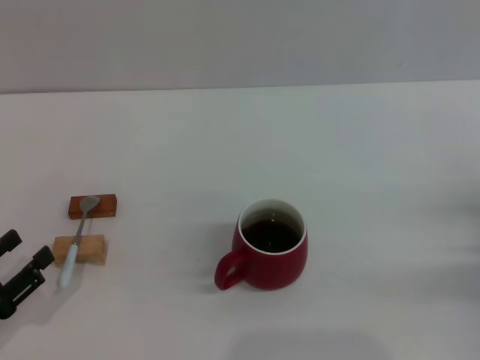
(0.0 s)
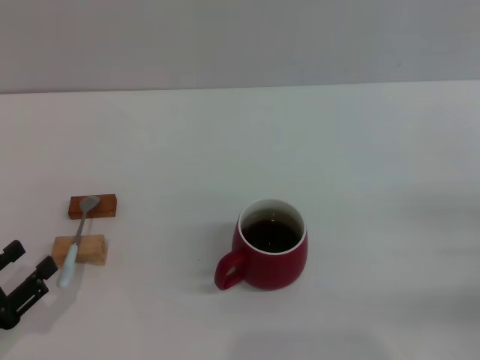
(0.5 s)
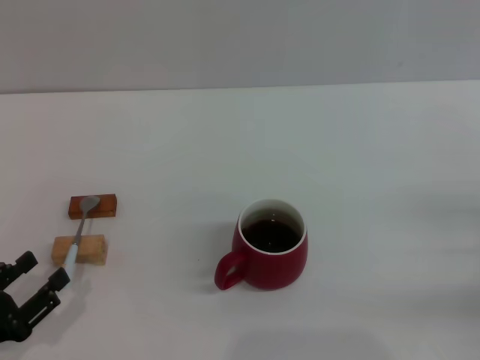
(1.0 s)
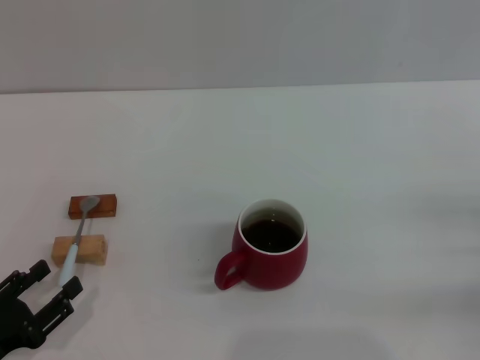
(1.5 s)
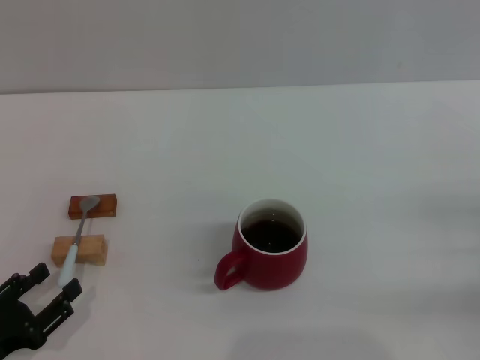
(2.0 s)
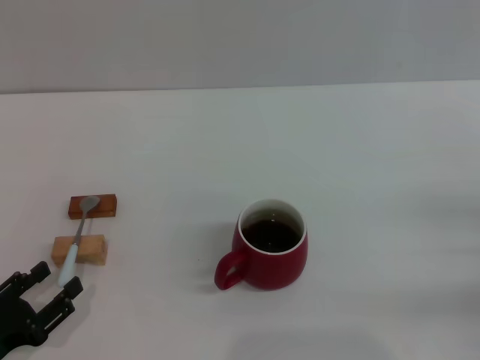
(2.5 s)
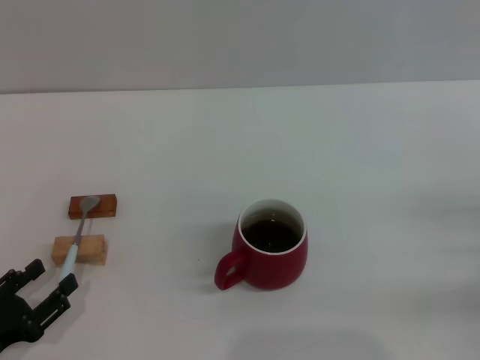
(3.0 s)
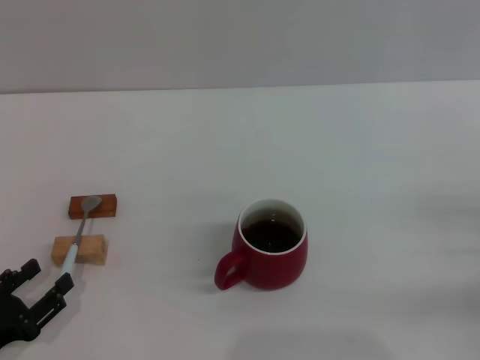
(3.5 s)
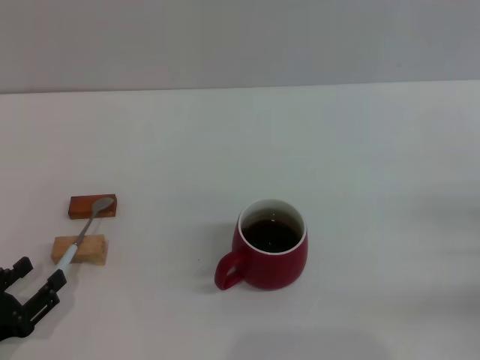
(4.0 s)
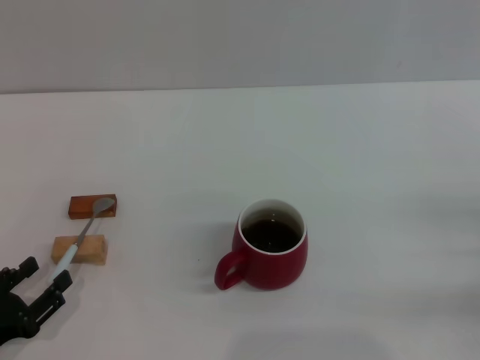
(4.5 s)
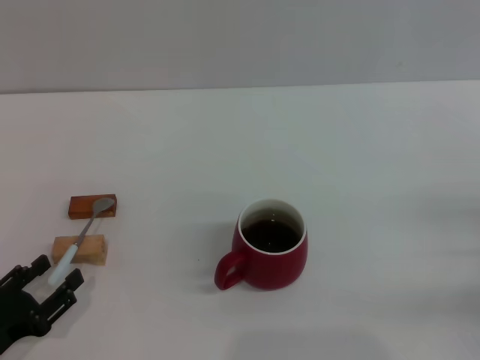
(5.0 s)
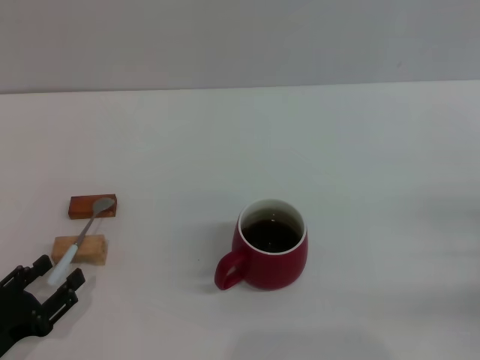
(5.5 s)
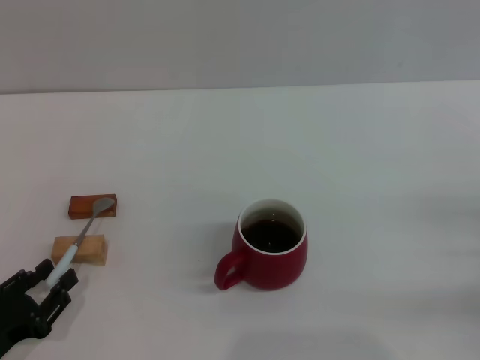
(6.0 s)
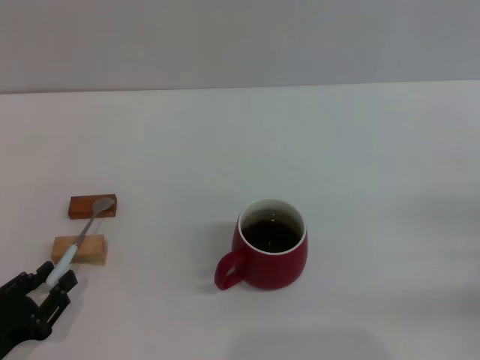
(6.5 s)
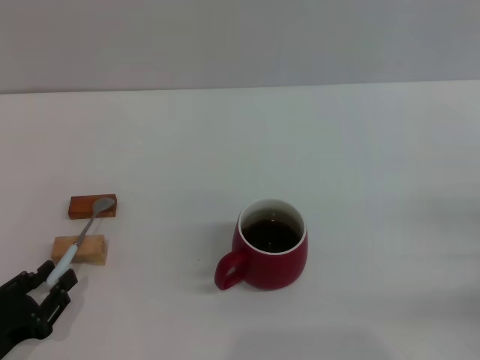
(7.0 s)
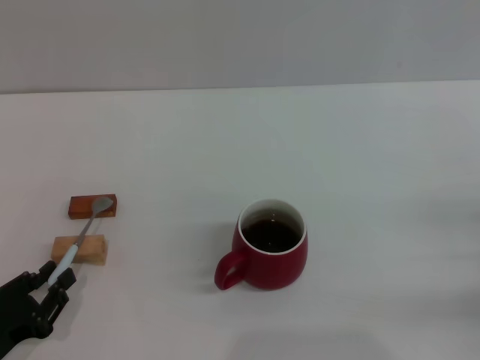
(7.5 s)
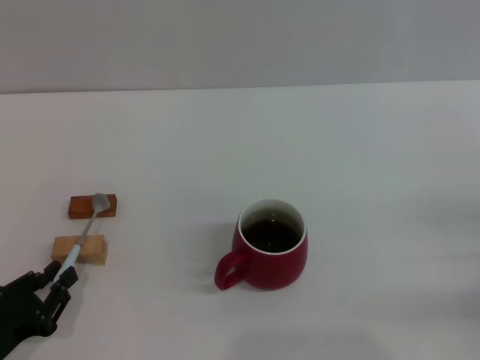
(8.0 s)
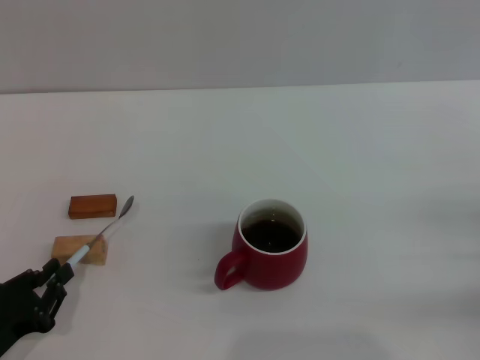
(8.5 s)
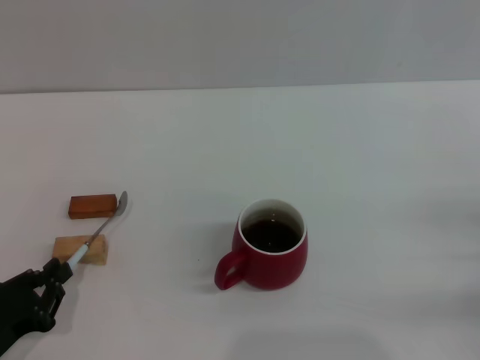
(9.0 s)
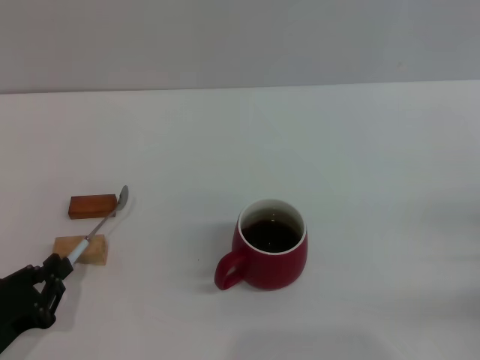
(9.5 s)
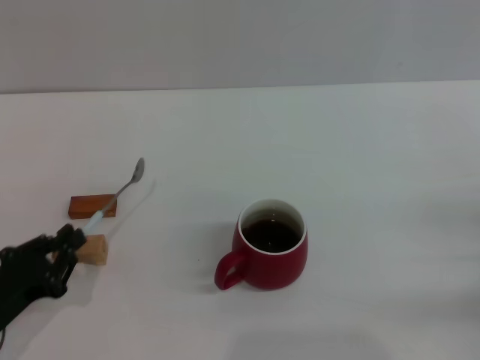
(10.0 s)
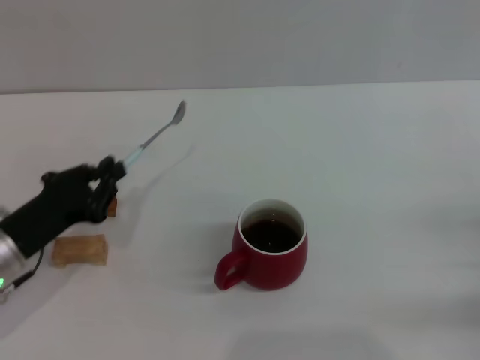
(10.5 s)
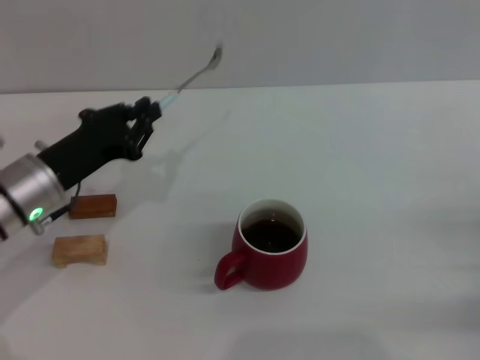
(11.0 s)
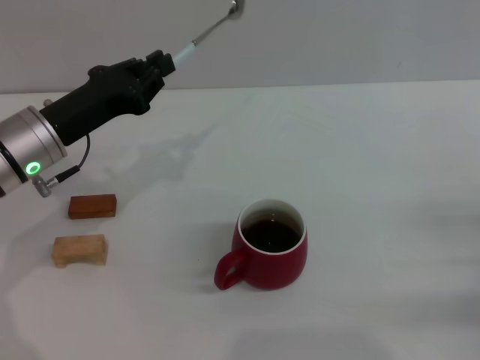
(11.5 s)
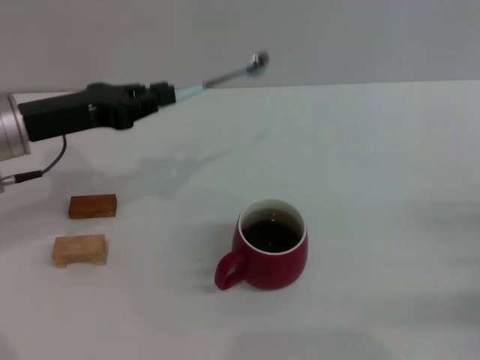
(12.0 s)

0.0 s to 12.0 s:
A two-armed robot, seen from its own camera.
Task of the whole recording: Move the red cup to the center, lift the blue spoon, stir it three times in the cup, and put the spoon into the cup.
Step, 0.0 to 10.0 s: Pick up the spoon with the left gripper.
0.0 to 2.0 s: The grippers move only a little.
2.0 to 4.0 s: Both grippers stay about where they are.
4.0 to 6.0 s: The grippers move only a little.
6.0 to 8.0 s: Both grippers stay about where they are.
8.0 to 10.0 s: There are only small adjustments of the grippers.
10.0 to 12.0 s: The left gripper goes approximately 20 cm forward and upward.

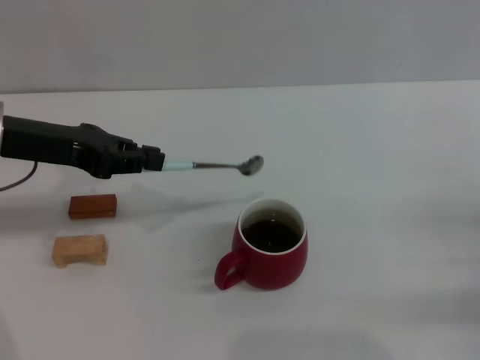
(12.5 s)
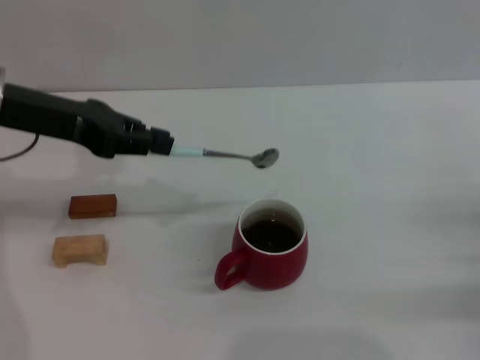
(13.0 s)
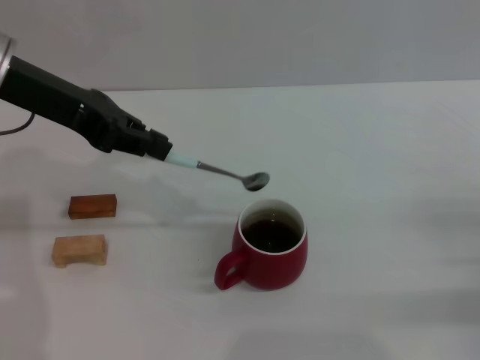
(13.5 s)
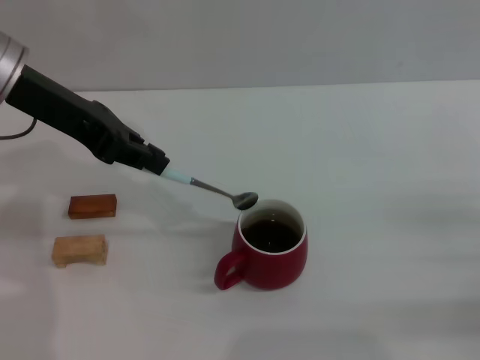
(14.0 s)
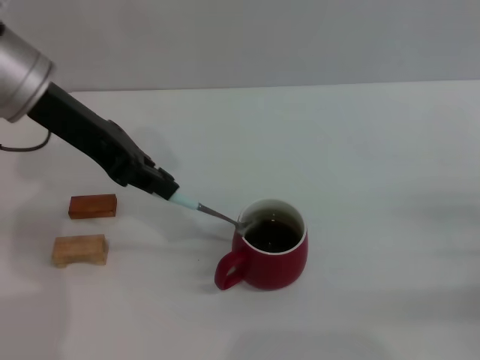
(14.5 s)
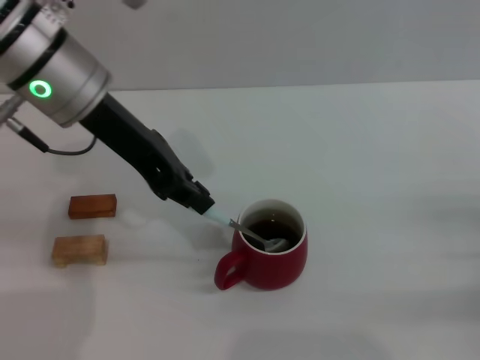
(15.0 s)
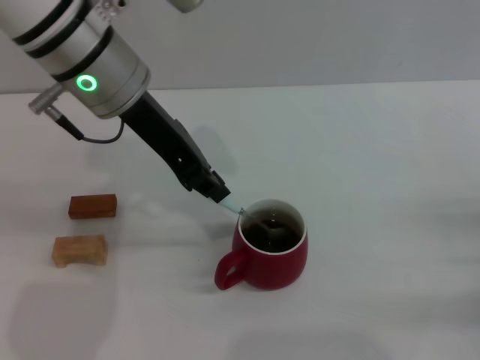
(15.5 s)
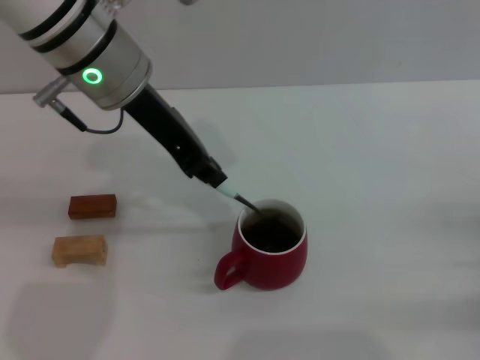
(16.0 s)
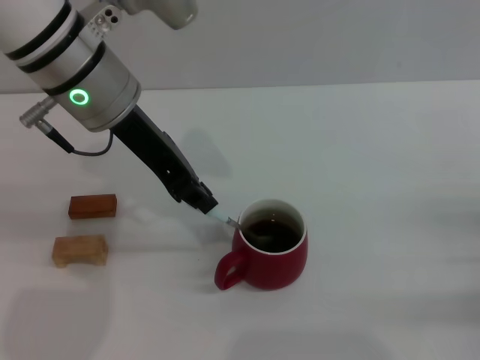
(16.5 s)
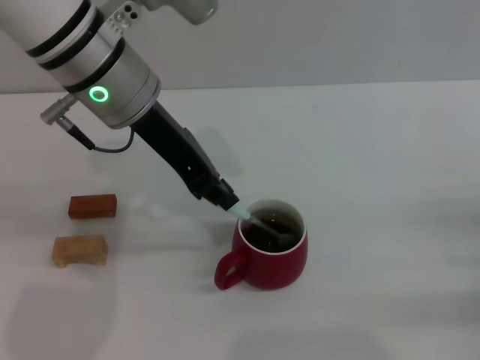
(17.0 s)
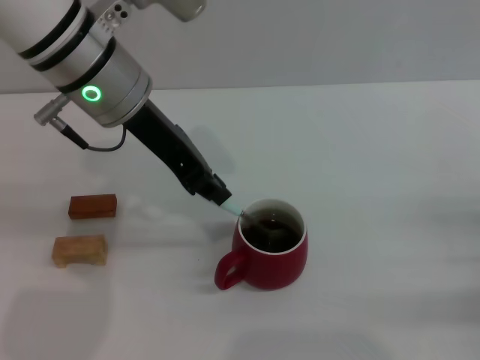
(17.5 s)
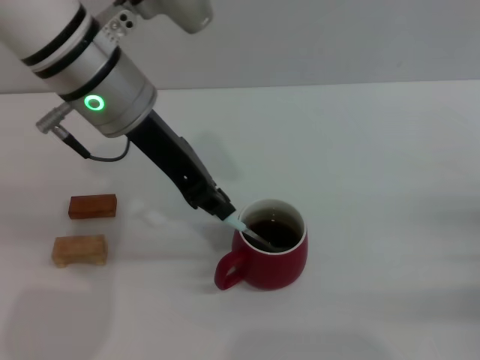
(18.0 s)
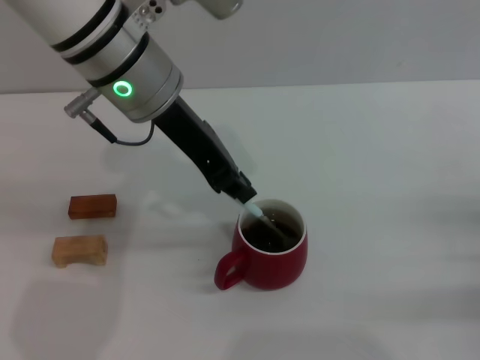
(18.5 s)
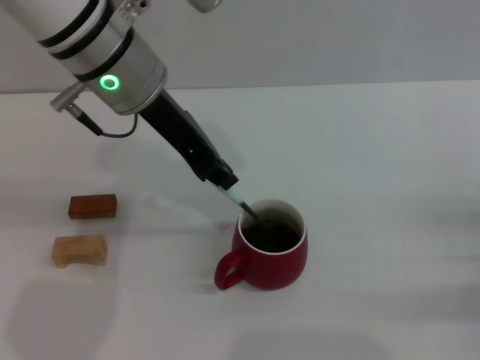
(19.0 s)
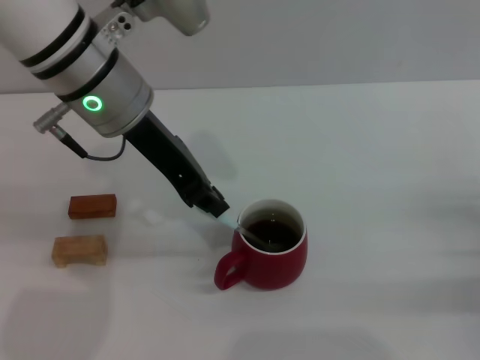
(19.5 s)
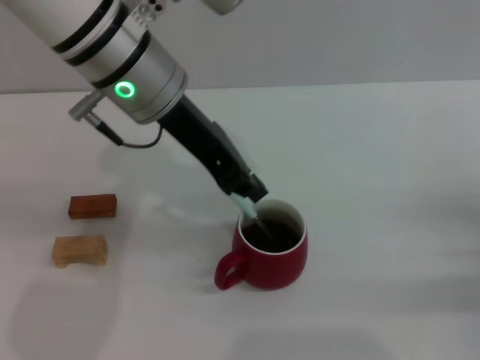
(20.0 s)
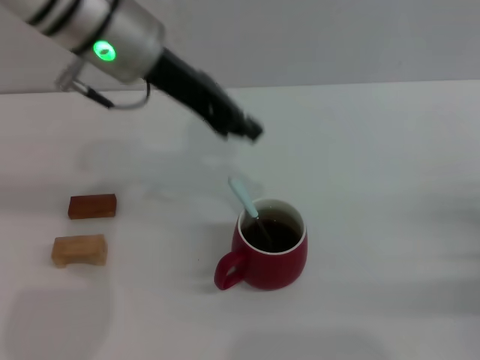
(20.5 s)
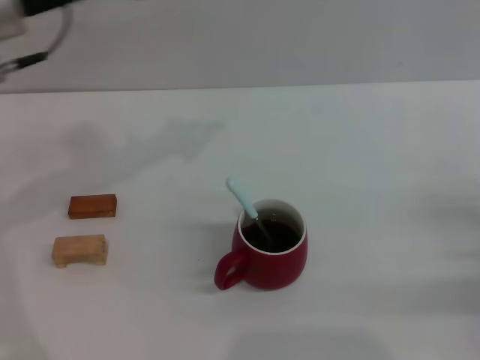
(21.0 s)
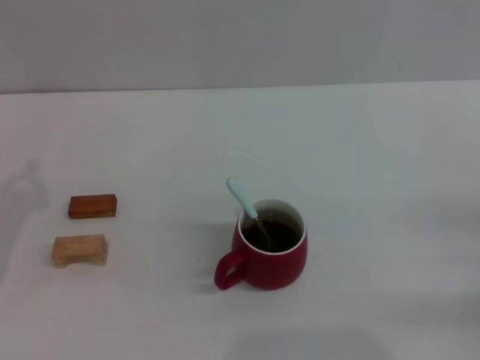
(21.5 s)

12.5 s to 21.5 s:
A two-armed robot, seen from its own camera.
Task of the whole recording: Move the red cup to the center, lift the blue spoon, stir it three times in the cup, and put the spoon into the cup.
Step, 12.5 to 20.5 s: Stir the coffee in the cup with the left gripper.
12.5 to 14.5 s: The left gripper is displaced upward and to the right by about 10 cm.
14.5 to 17.0 s: The left gripper goes roughly 10 cm to the right.
17.0 to 19.5 s: The grippers make only small movements.
19.5 to 21.5 s: The left gripper moves to the left, downward and backward, some 25 cm.

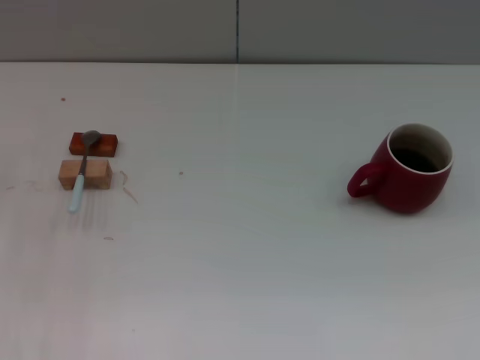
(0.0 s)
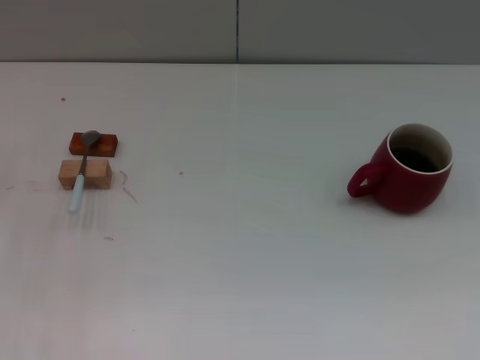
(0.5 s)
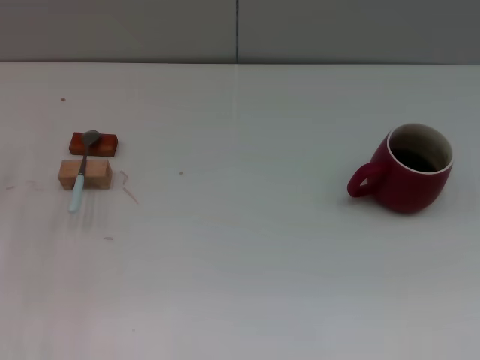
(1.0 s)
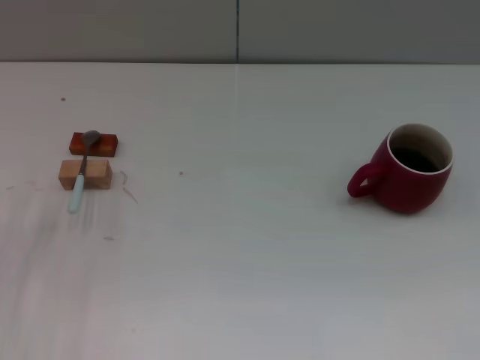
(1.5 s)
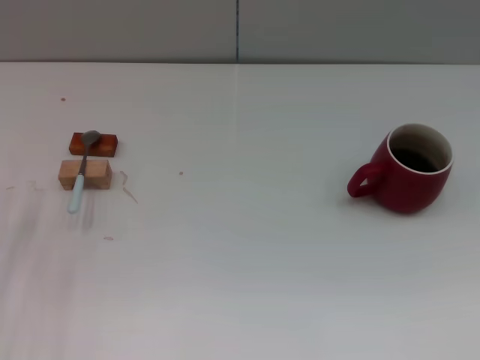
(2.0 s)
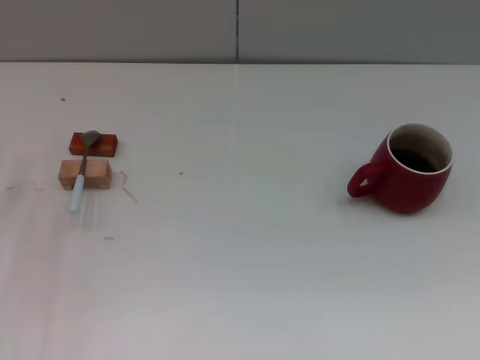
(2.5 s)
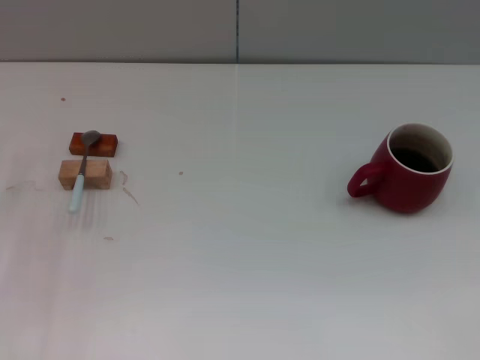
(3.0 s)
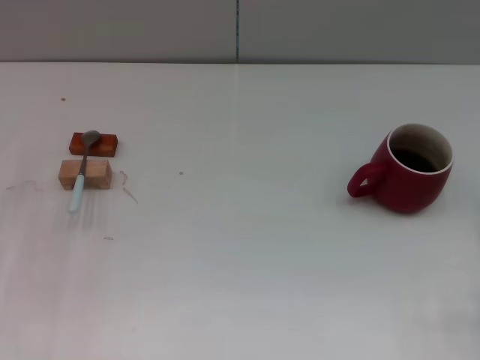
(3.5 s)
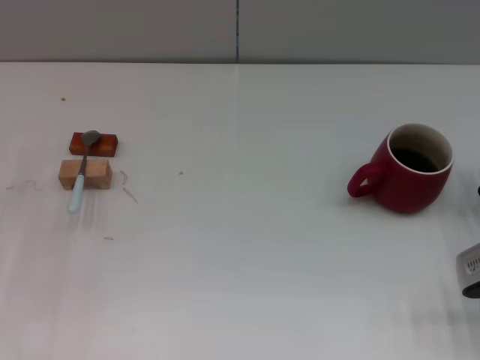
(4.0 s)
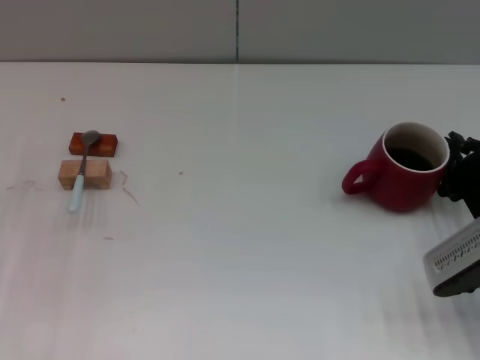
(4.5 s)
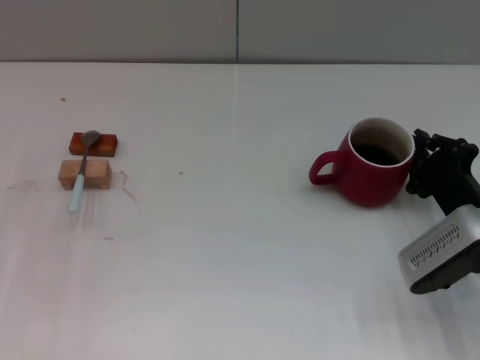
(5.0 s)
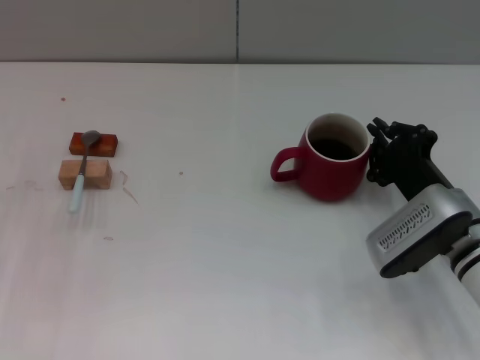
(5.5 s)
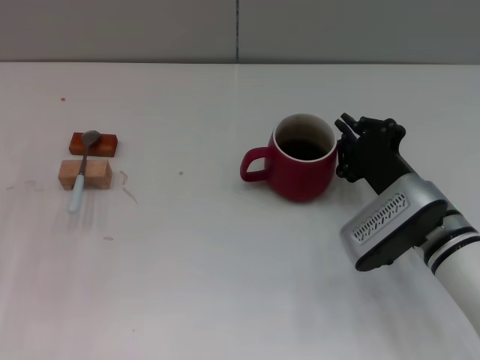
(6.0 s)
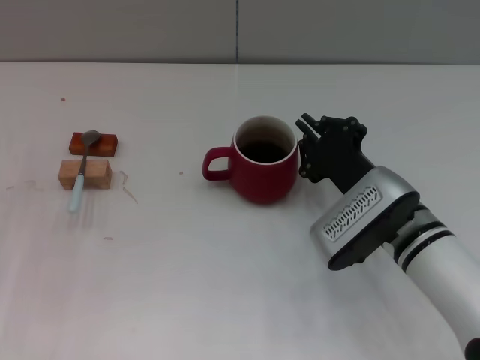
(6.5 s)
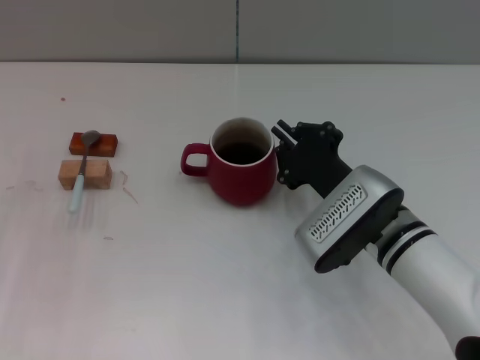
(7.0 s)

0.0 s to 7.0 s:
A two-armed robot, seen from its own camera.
Task of the whole recording: Move the red cup to the center, lift the blue spoon, stir it three times in the cup, and put the spoon into the cup.
3.5 to 5.0 s: The right gripper is displaced to the left by about 10 cm.
5.0 to 7.0 s: The right gripper moves to the left, about 10 cm.
